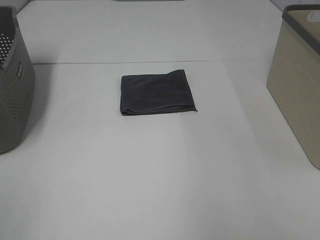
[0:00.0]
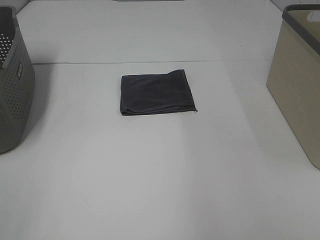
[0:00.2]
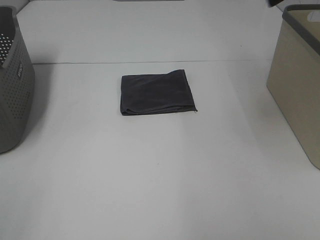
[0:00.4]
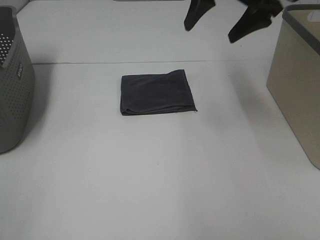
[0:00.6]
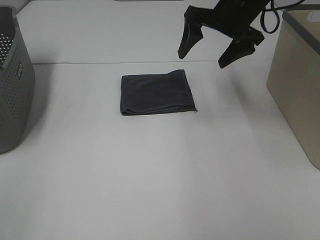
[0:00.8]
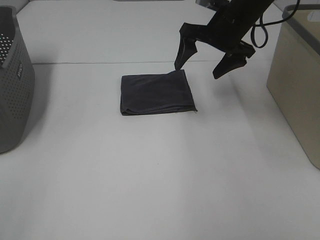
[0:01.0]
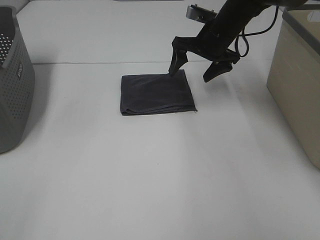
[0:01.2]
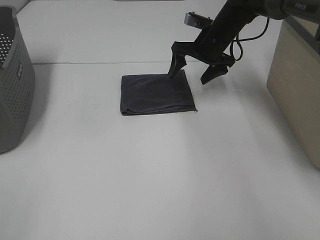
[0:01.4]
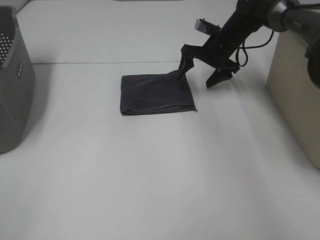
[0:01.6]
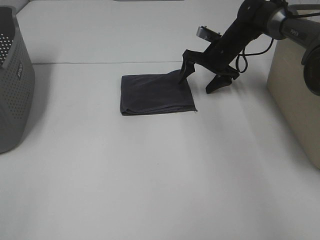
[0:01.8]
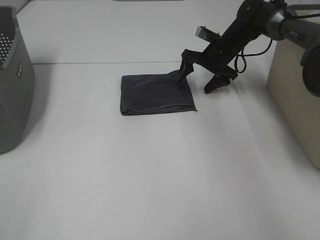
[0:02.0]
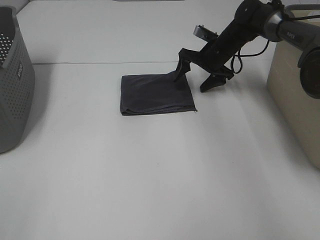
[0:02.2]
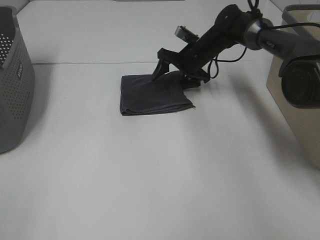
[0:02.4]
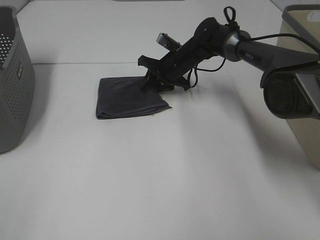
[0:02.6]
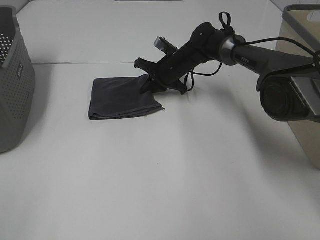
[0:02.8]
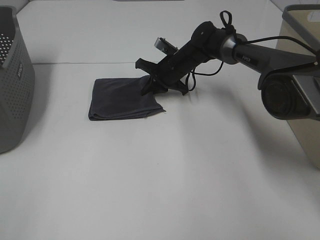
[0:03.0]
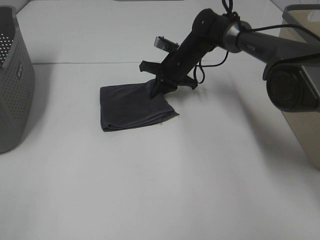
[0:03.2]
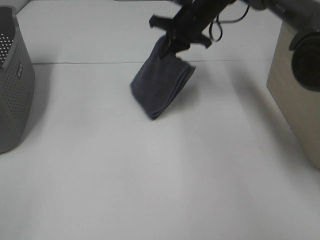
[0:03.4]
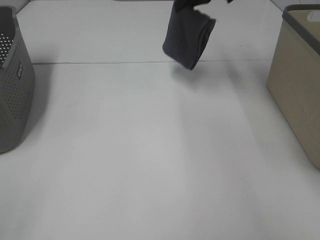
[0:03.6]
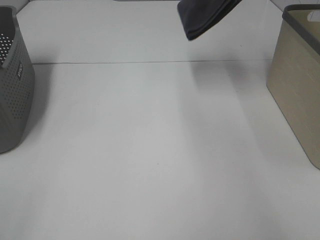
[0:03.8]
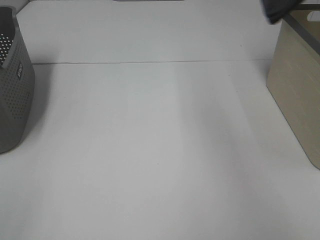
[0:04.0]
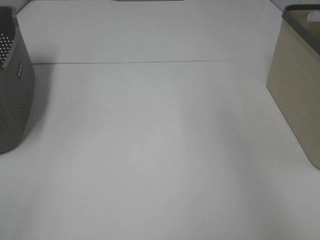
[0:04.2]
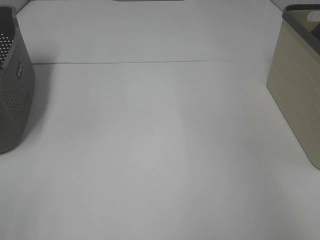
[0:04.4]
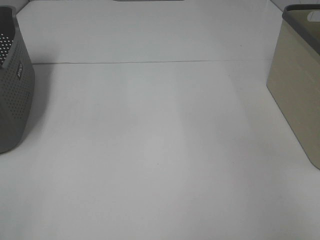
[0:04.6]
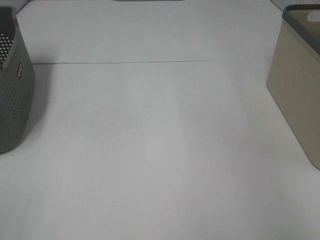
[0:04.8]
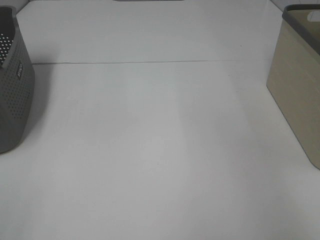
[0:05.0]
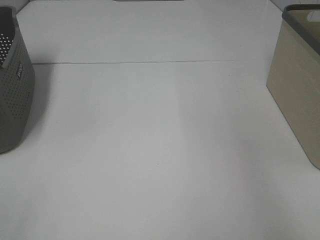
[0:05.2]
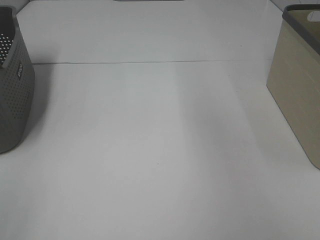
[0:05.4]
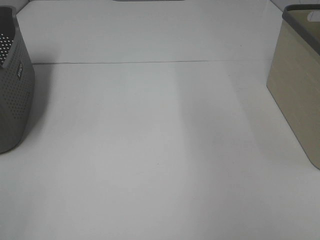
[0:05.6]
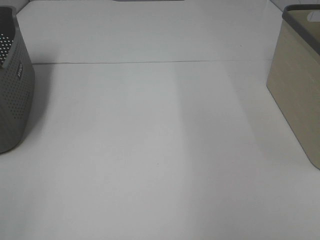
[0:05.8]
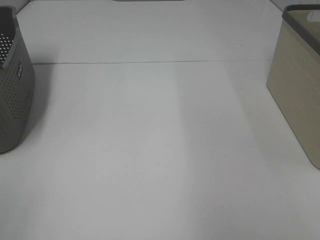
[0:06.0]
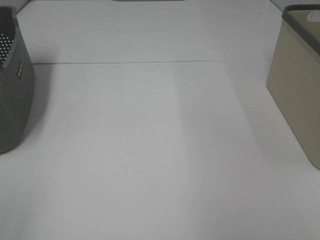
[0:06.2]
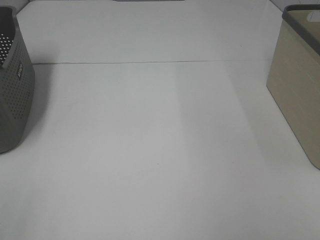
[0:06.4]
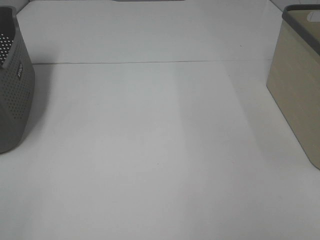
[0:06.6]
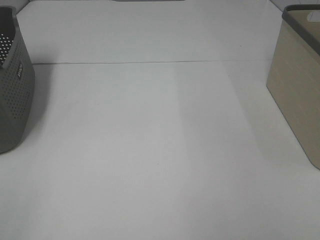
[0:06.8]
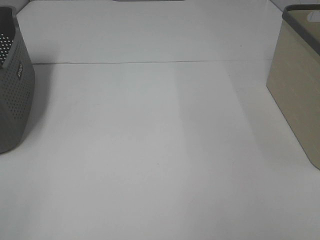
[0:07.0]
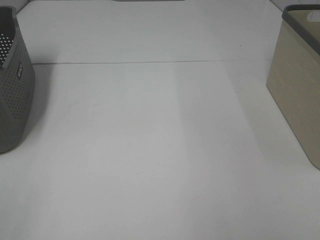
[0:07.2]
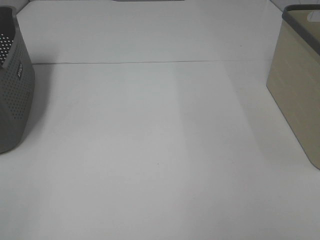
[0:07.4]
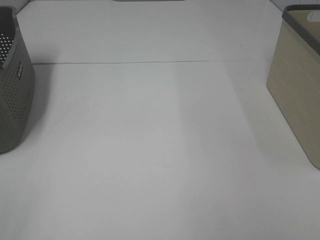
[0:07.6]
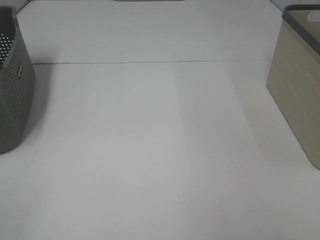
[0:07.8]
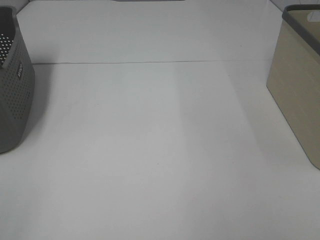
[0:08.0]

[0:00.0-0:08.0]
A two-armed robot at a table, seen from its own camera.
Step, 0:00.0 to 0:02.6: Right hand: grab the folded grey towel.
Step, 0:02.8 to 0:04.8: Right hand: place the grey towel in right basket.
0:00.0 to 0:01.6: The right gripper travels forward and downward by some 50 cm.
0:01.6 to 0:03.2: The right gripper goes some 10 cm to the left, and closes.
0:03.2 to 0:04.8: The right gripper shifts roughly 40 cm to the right and upward, and opens its fingers.

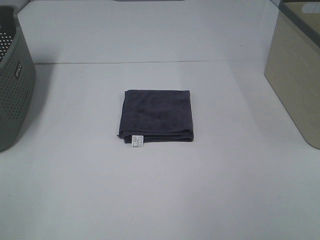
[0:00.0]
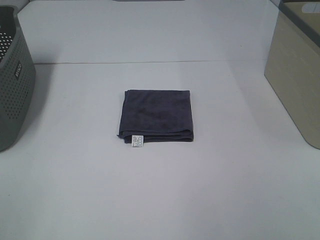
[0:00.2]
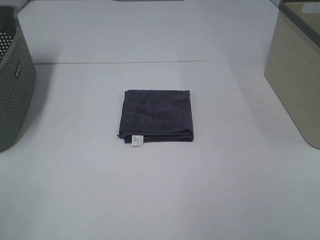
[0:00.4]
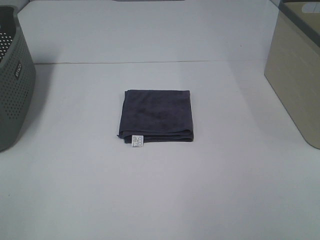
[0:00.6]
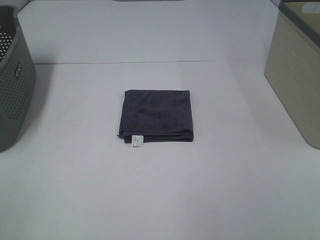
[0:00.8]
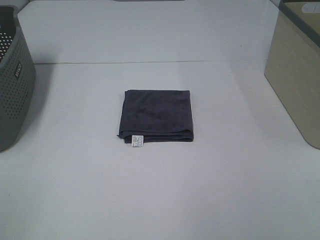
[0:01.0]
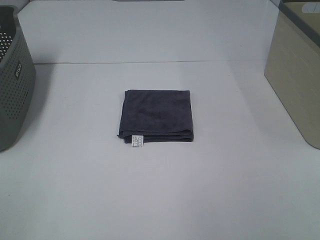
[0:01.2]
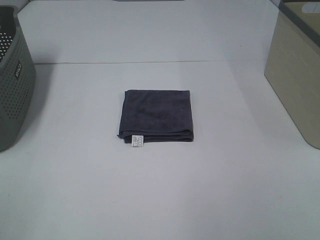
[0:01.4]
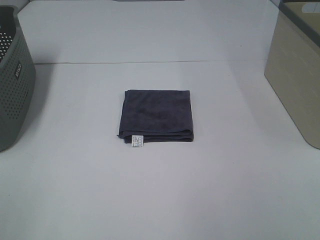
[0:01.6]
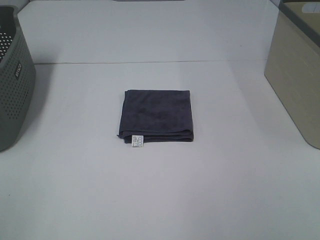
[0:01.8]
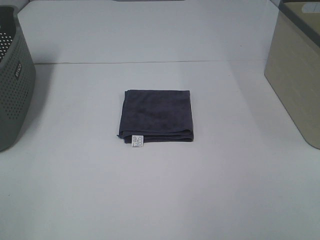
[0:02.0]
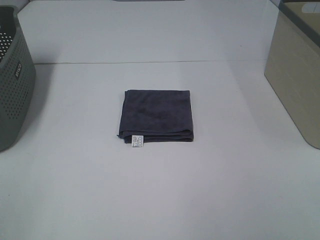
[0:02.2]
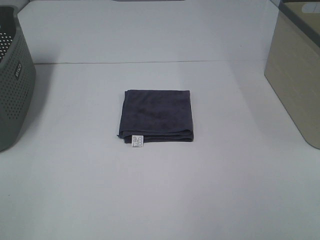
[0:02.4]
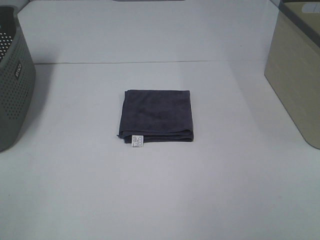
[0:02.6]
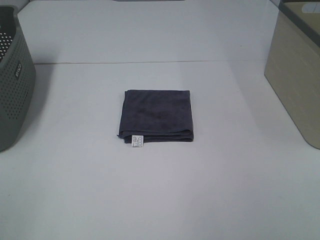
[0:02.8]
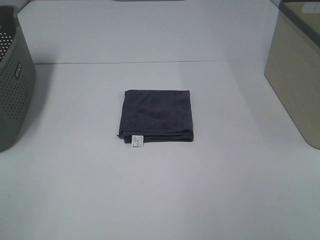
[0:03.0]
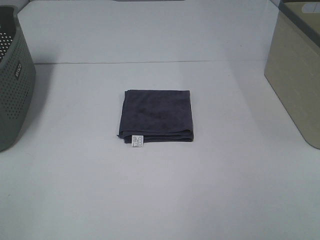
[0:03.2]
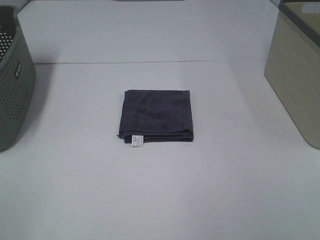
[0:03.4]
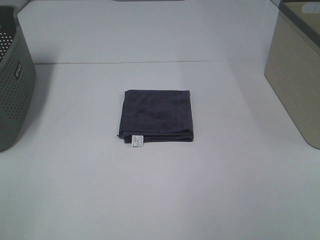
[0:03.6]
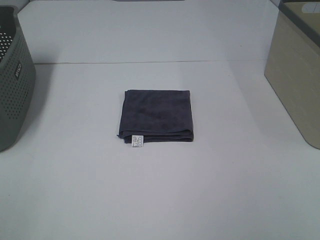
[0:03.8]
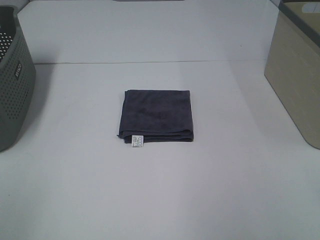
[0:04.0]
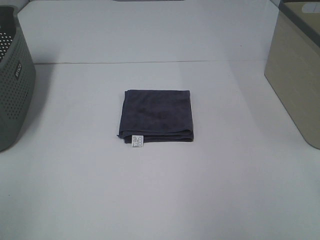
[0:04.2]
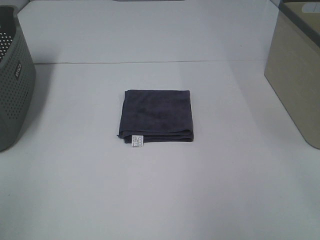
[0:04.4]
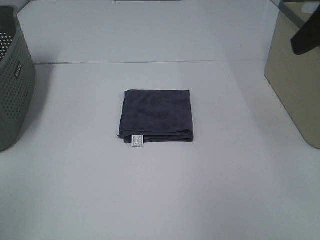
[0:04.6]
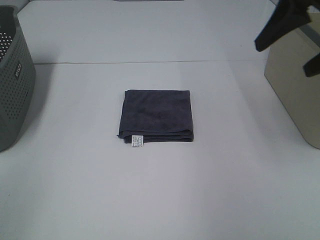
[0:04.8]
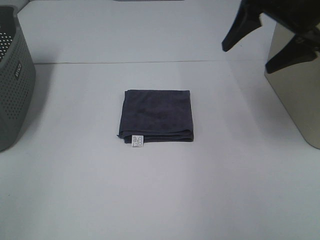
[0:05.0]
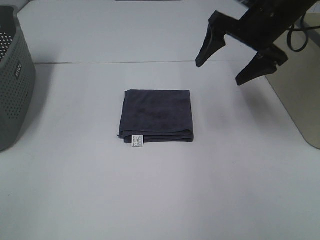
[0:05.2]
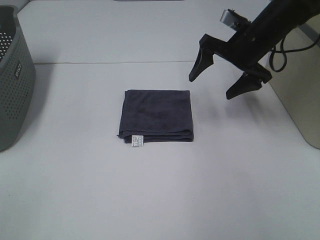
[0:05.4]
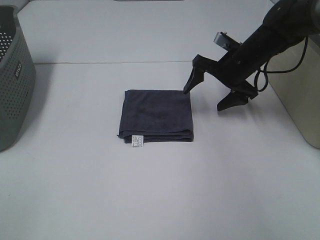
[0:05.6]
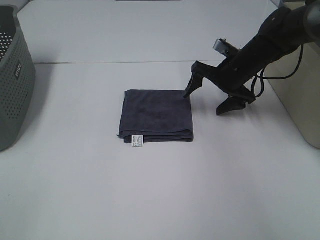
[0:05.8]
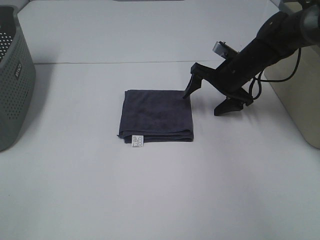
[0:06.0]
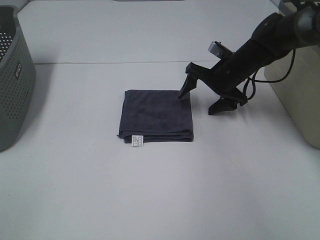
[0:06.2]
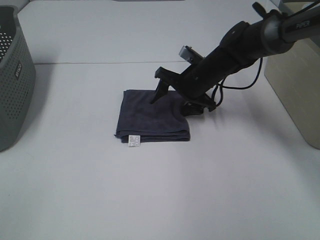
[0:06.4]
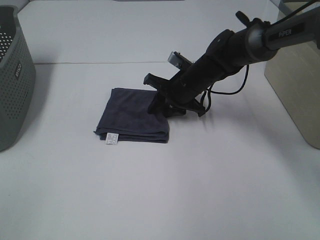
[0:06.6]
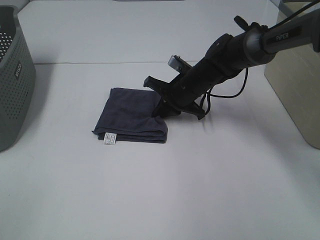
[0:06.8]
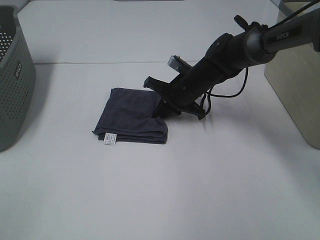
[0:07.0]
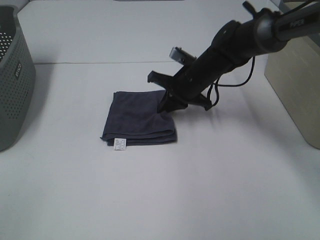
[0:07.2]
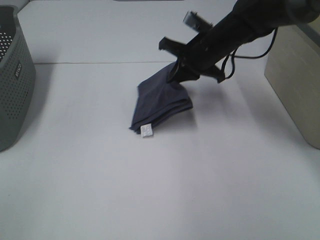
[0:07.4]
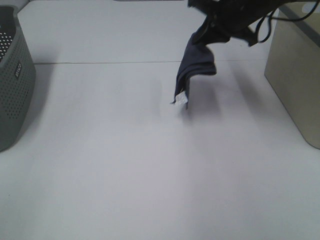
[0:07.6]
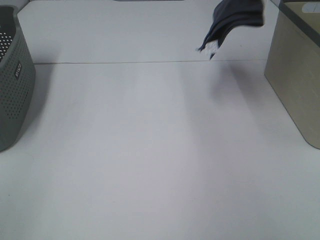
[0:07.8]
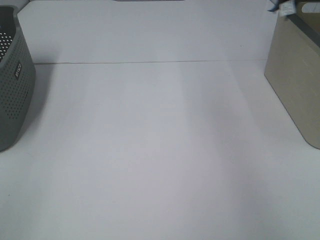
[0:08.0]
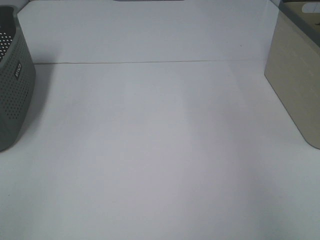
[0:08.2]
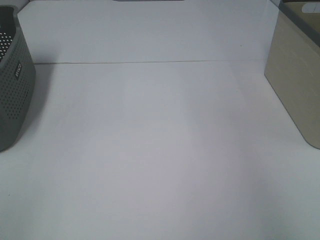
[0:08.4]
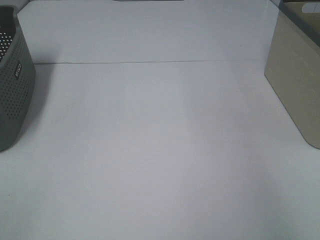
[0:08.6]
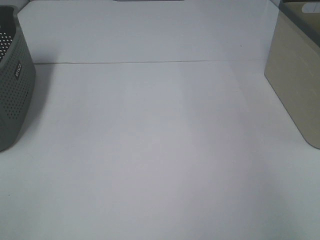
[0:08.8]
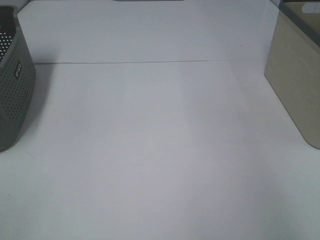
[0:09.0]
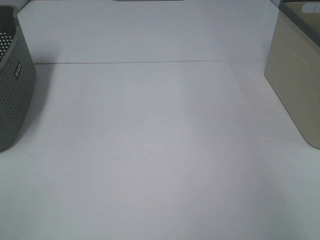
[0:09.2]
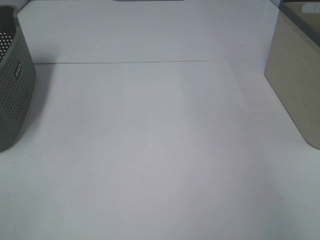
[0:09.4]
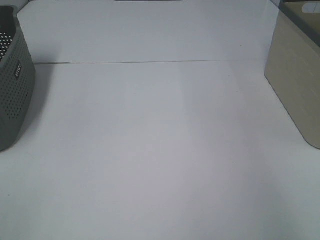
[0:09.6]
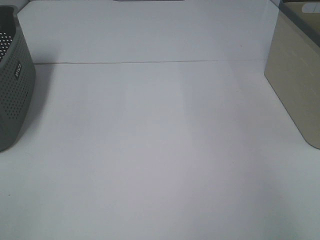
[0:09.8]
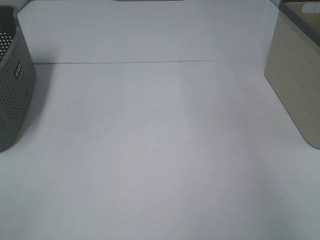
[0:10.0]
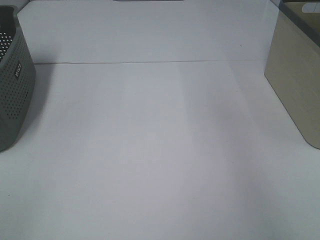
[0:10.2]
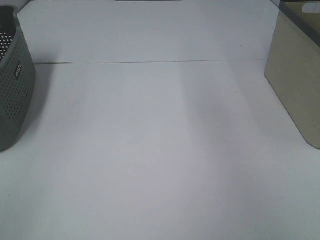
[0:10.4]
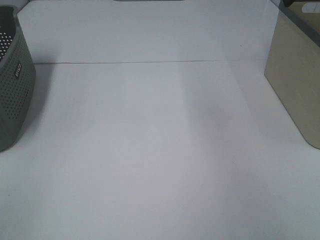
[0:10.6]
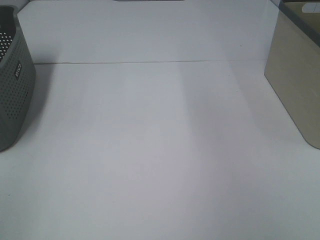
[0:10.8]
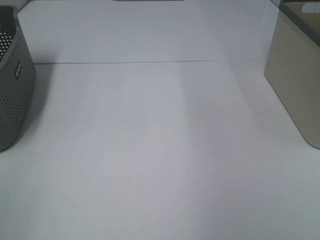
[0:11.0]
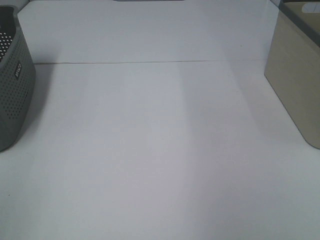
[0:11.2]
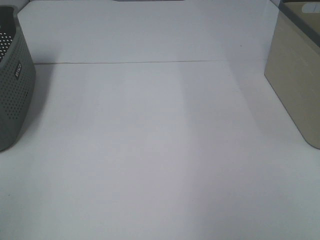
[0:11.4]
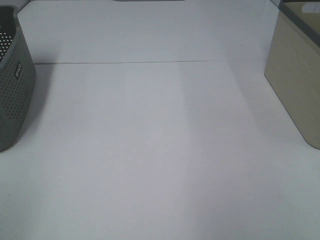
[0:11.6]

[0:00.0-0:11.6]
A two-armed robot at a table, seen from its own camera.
Step, 0:00.0 to 0:06.8: Right hand: grab the folded grey towel.
Step, 0:07.0 to 0:09.0: Right hand: place the grey towel in right basket.
0:00.0 to 0:02.8: Both grippers stay about where they are.
0:04.4 to 0:05.8: The right gripper goes about 40 cm downward and forward.
0:05.8 to 0:07.2: The right gripper goes some 10 cm to the left, and closes up.
0:07.2 to 0:08.8: The right gripper heads to the right and upward, covering about 40 cm.

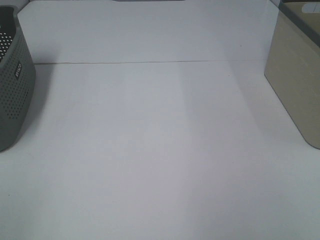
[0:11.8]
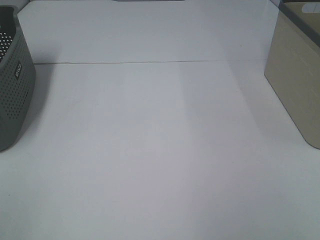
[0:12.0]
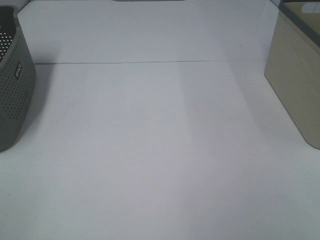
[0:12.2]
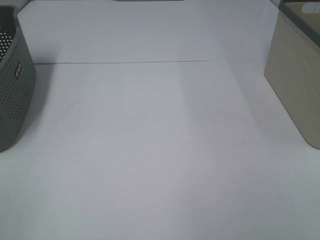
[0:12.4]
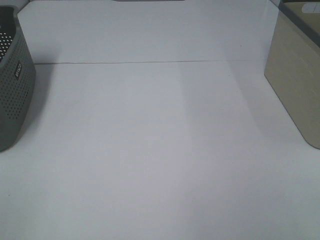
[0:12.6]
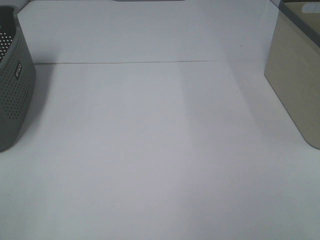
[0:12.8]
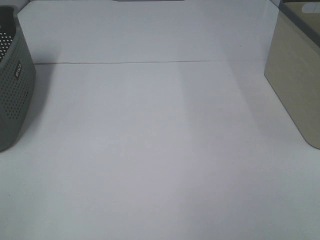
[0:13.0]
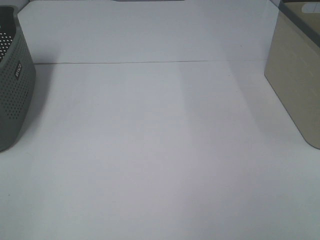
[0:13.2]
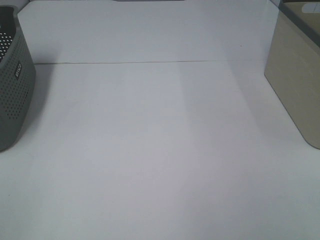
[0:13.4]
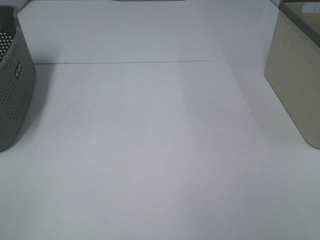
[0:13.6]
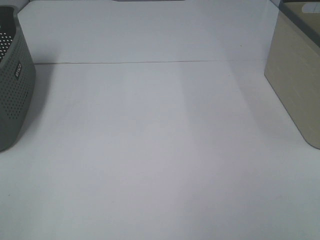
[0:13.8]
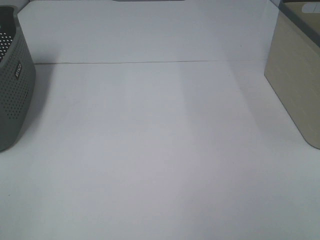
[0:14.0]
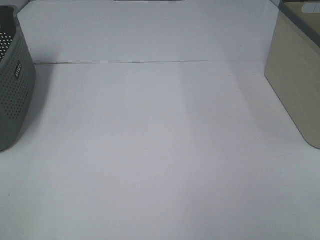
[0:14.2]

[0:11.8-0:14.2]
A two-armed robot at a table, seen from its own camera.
0:13.0 to 0:14.2: Both grippers stay put.
